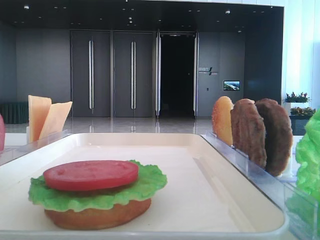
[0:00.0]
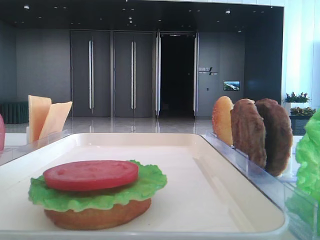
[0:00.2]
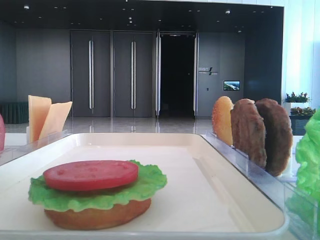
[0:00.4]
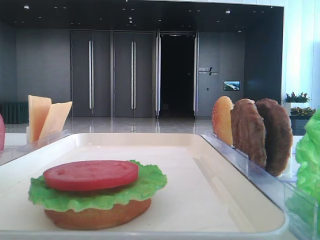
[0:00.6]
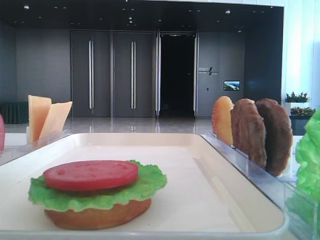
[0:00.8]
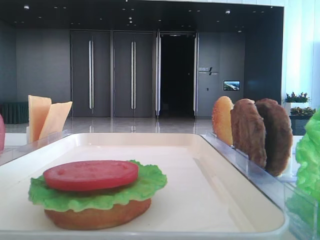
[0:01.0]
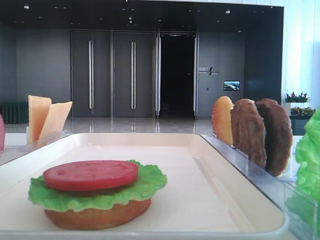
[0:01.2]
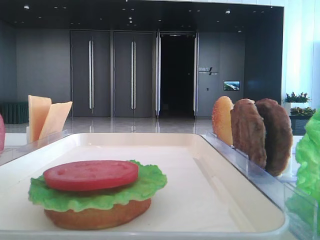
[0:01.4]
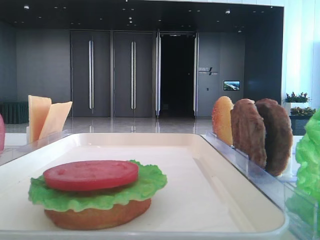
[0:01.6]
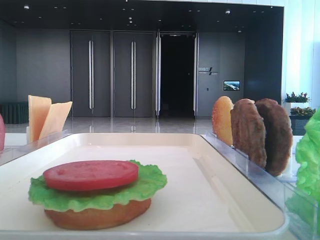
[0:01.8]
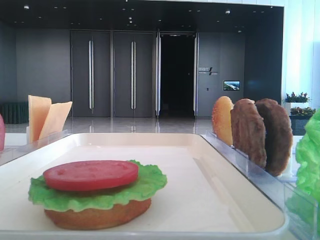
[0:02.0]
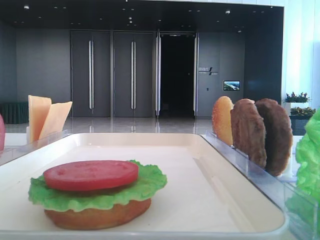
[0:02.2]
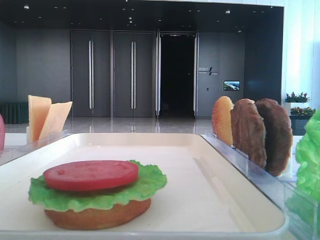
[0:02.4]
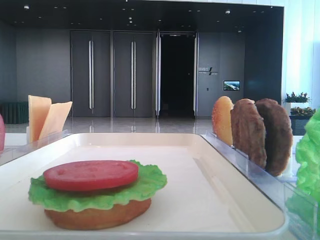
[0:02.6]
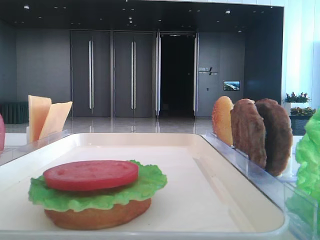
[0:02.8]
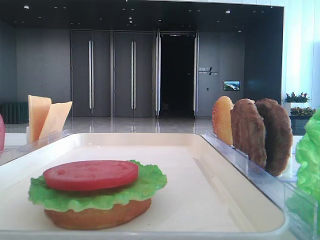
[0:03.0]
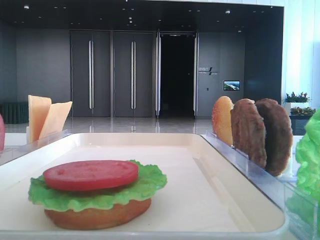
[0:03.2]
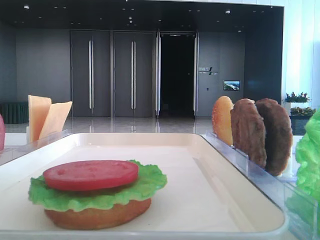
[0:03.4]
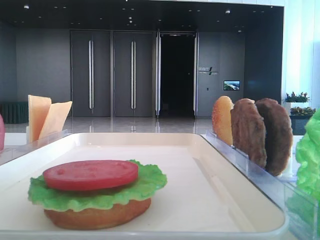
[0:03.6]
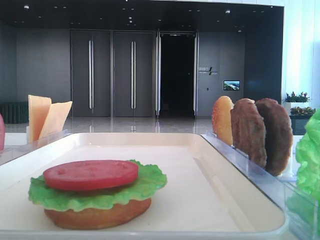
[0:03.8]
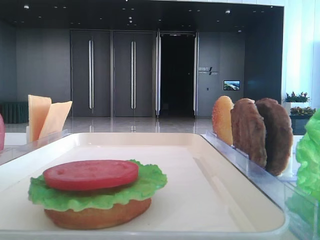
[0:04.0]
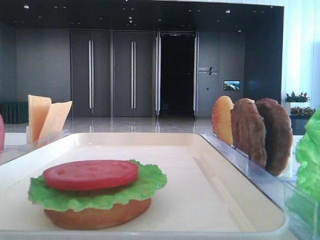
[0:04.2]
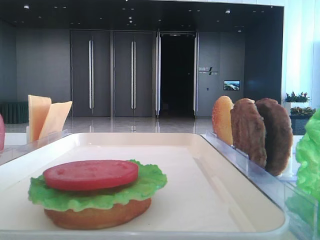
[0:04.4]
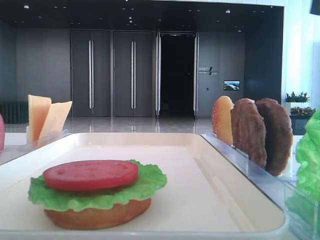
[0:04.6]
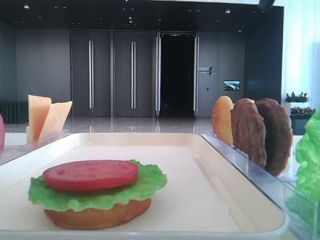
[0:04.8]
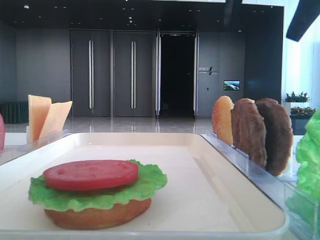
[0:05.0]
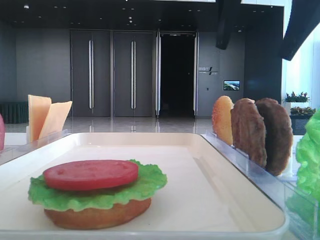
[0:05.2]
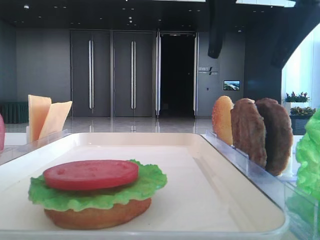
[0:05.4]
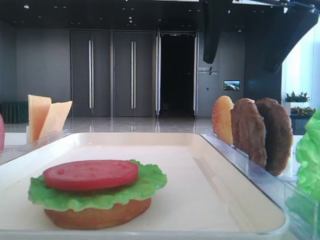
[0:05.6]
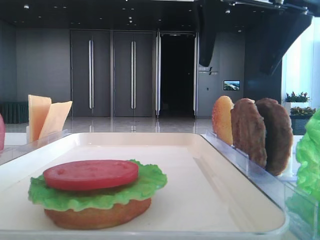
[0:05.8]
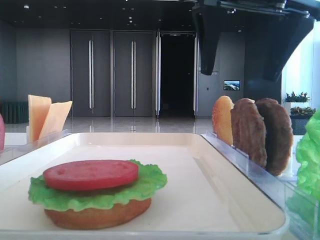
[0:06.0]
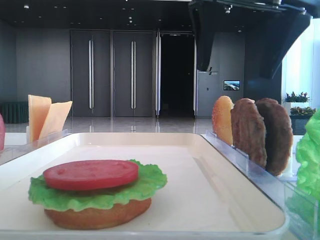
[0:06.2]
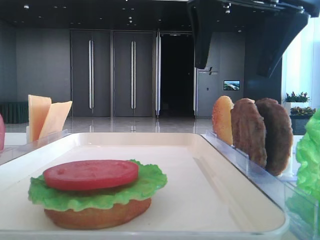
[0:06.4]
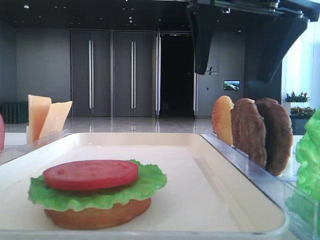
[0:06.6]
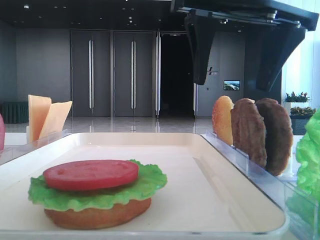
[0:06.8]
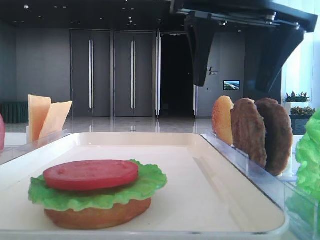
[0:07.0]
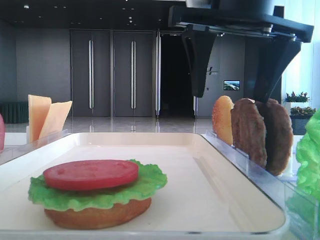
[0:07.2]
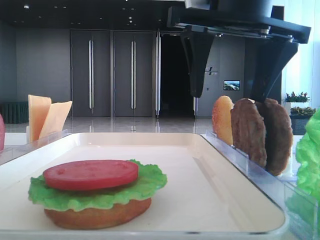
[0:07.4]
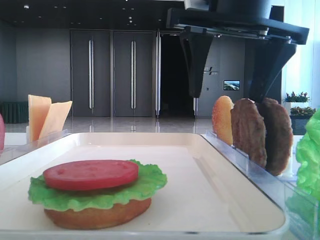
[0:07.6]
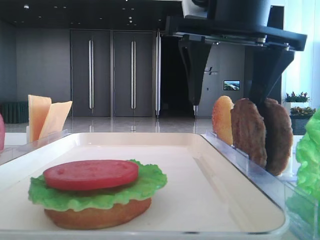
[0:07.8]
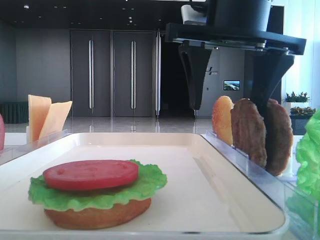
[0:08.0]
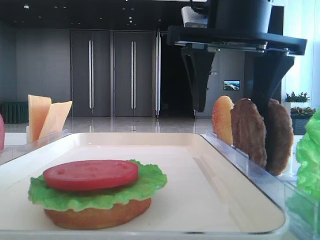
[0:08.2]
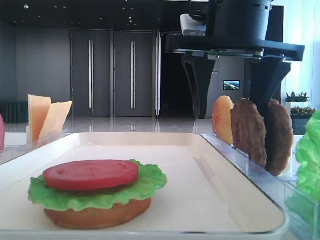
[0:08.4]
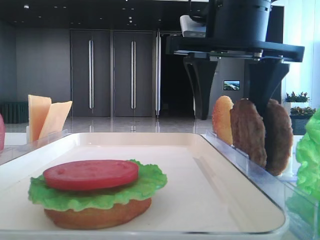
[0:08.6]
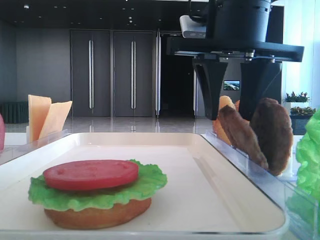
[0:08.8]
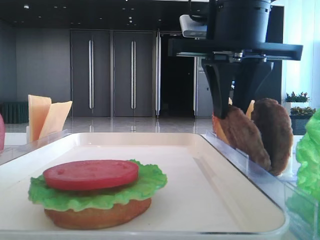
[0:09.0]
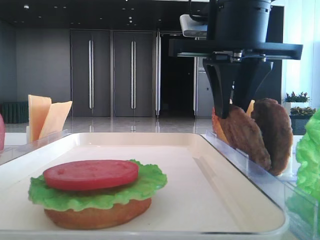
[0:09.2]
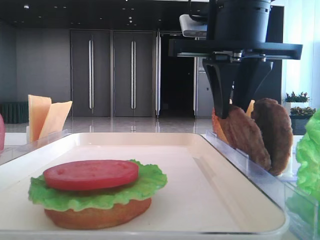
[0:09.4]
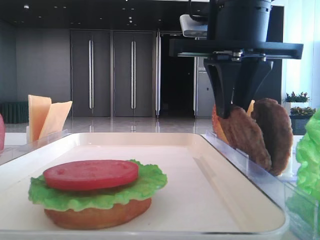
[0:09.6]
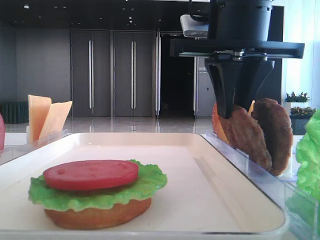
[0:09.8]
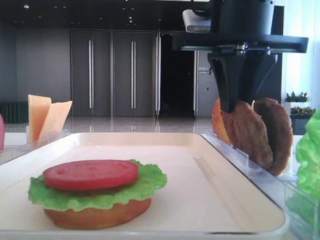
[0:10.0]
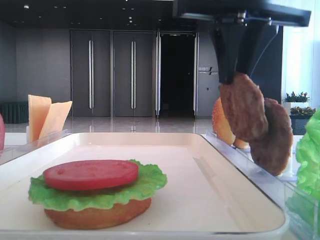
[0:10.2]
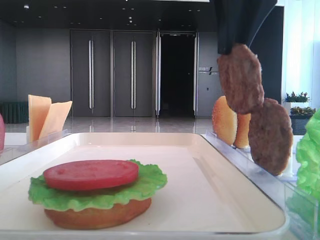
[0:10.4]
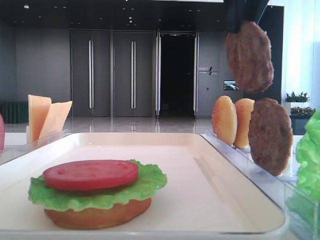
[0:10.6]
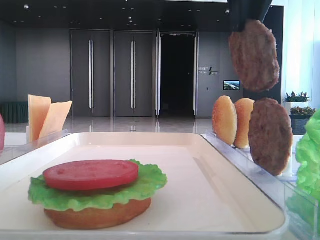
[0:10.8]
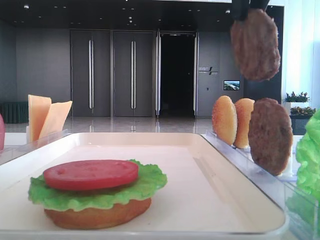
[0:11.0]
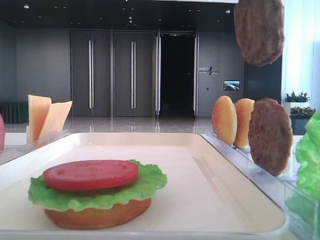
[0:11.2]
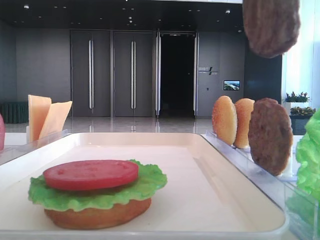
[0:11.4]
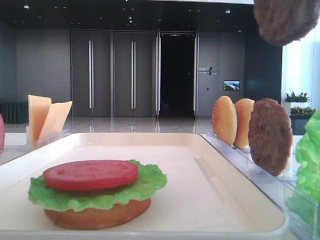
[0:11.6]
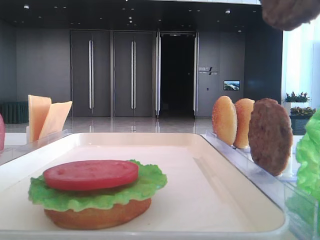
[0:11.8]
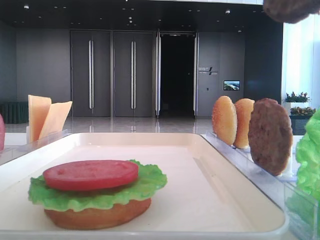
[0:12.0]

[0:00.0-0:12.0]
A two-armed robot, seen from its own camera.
Step, 0:00.0 to 0:09.8: Grab the patty with the right hand.
0:04.4 to 0:06.0: The right gripper is displaced to the left by approximately 15 cm.
0:06.0 to 0:07.6: There are only small adjustments of the grippers.
0:07.6 to 0:09.0: The right gripper closes.
0:09.0 to 0:10.4: The right gripper shifts about 5 cm upward.
0:10.4 to 0:12.0: The right gripper moves backward and upward, approximately 20 cm.

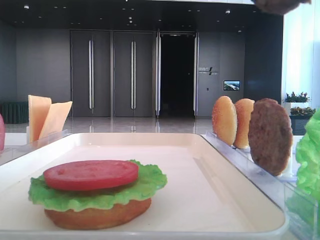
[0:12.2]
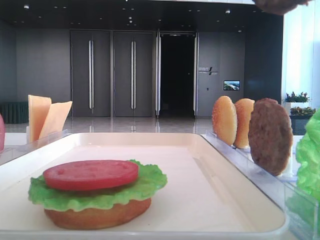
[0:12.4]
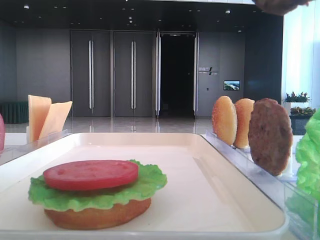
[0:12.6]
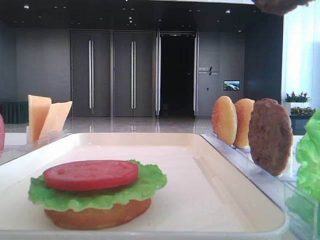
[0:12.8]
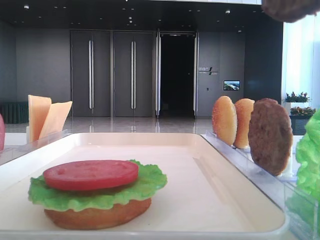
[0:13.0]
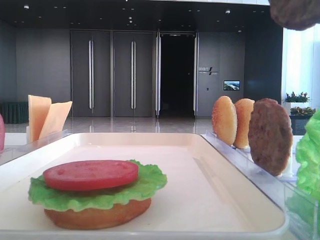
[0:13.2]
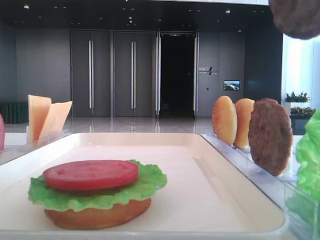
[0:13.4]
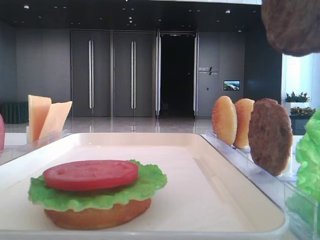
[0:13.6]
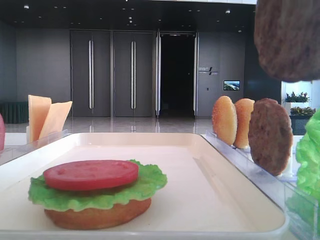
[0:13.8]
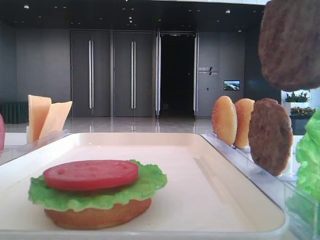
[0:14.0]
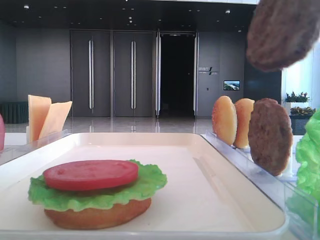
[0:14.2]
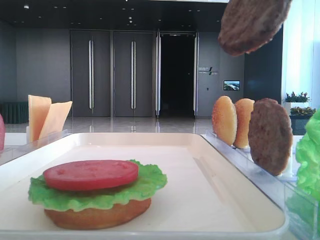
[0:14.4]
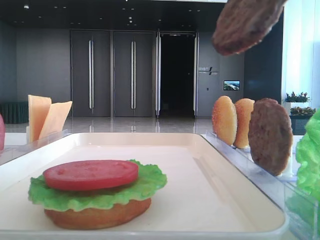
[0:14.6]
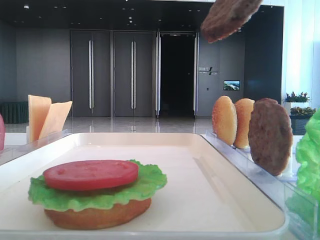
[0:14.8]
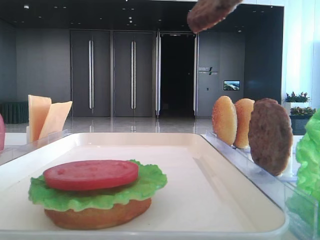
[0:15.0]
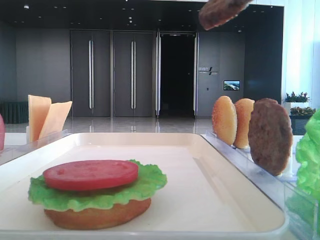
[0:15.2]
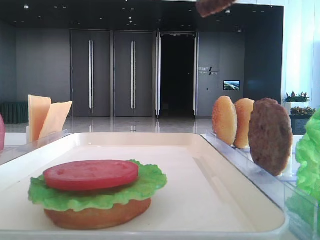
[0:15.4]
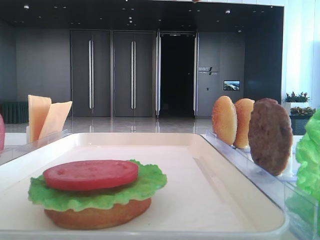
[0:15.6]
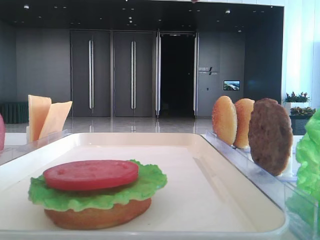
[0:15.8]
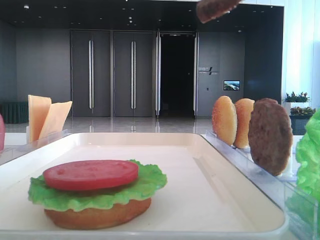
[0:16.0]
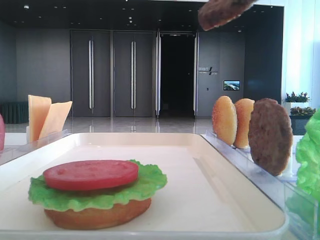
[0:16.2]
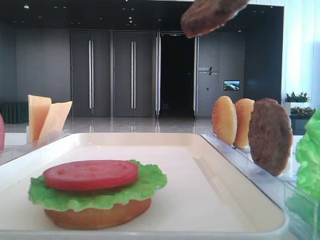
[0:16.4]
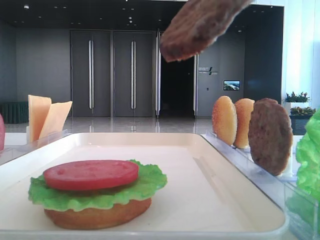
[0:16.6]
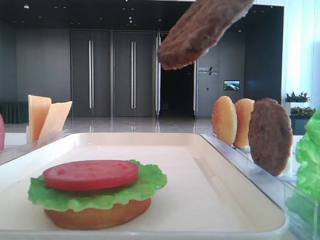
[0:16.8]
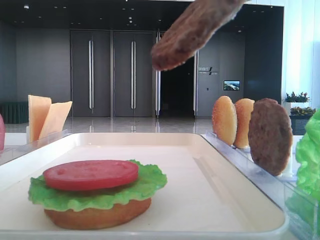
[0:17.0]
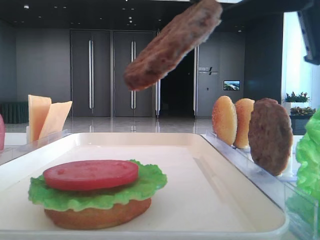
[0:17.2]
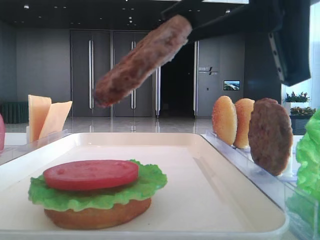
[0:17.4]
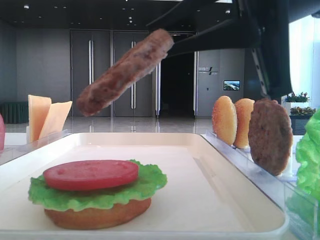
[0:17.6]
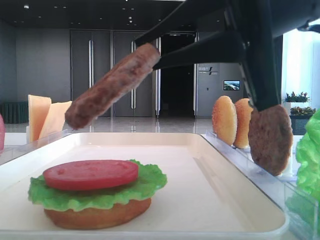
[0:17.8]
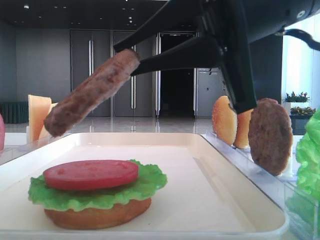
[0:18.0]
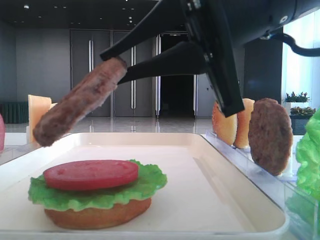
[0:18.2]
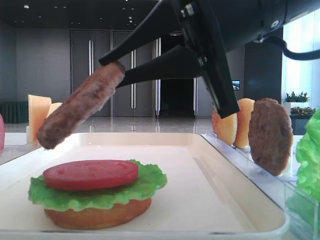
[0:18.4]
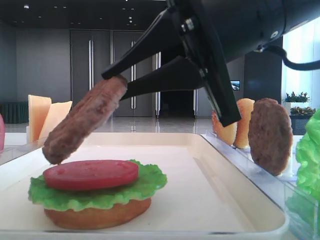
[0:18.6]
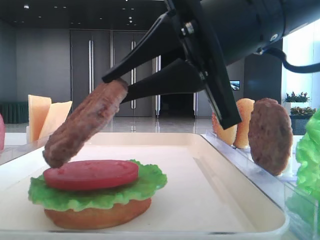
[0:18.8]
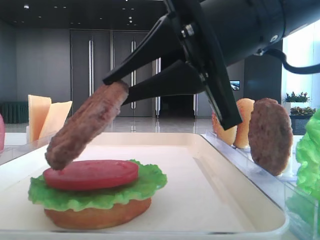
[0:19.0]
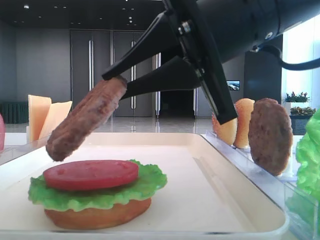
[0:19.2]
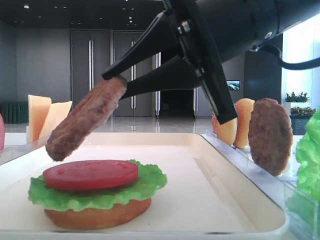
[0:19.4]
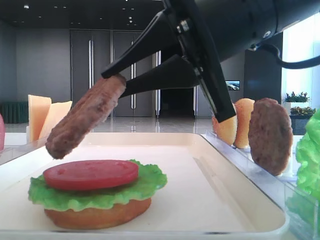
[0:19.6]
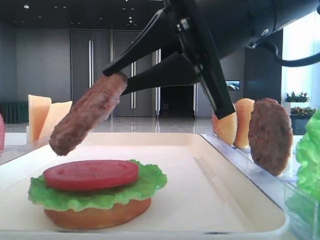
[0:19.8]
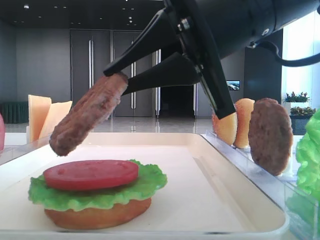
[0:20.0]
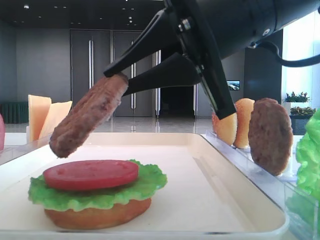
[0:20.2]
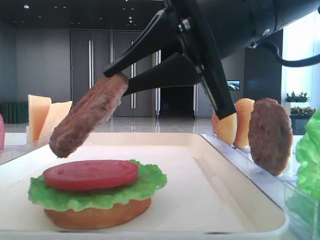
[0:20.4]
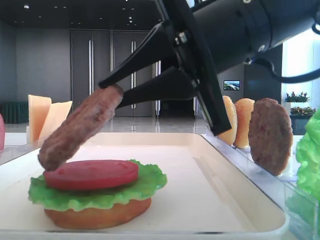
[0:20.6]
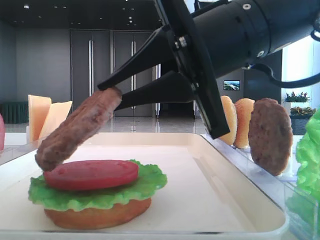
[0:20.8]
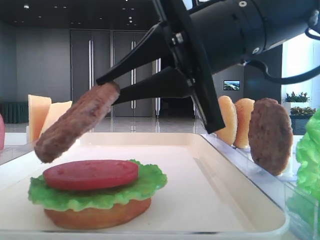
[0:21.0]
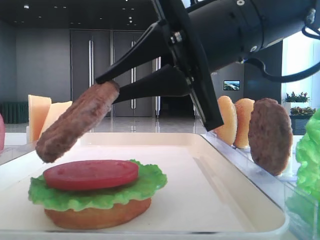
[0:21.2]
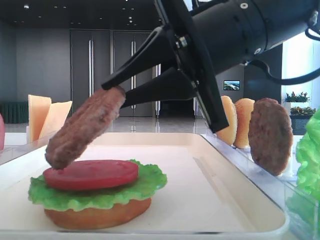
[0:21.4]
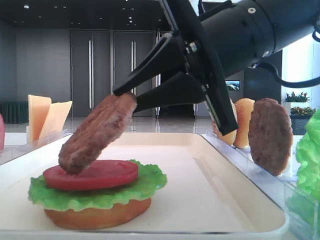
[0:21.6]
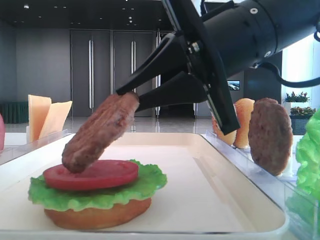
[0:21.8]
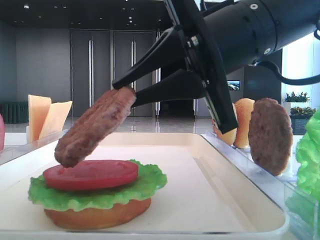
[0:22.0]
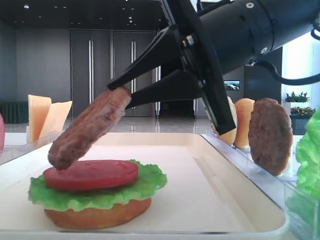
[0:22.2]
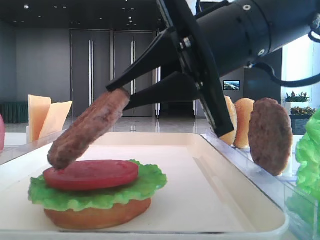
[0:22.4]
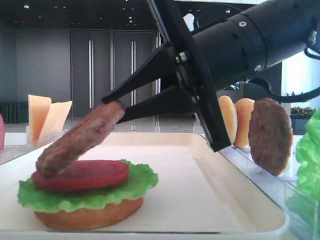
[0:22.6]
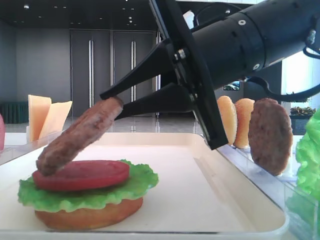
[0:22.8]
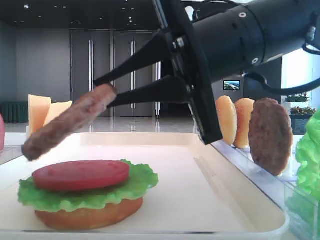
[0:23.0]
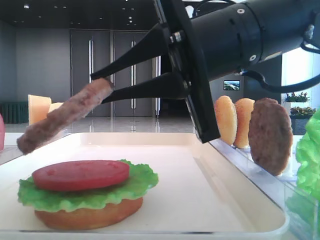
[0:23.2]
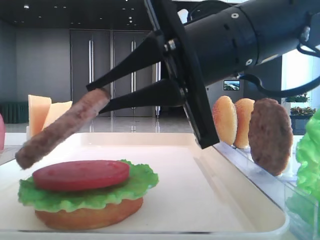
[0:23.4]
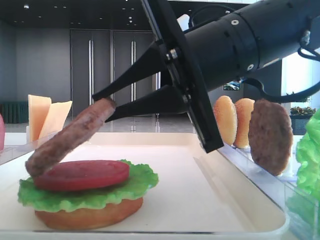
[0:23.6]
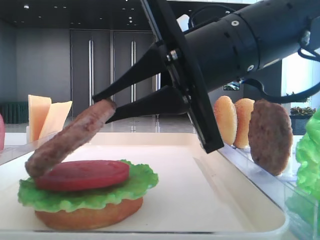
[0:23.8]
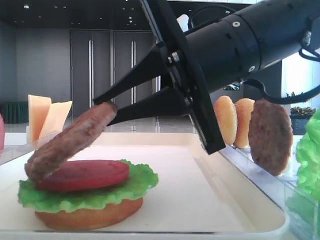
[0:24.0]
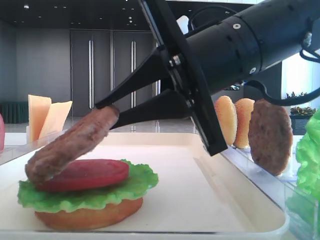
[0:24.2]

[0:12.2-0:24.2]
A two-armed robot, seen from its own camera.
0:12.2 to 0:13.8: The right gripper changes place by roughly 5 cm.
0:13.8 to 0:15.2: The right gripper shifts approximately 10 cm to the right and forward.
0:15.2 to 0:16.6: There are only small adjustments of the grippers.
0:16.6 to 0:18.2: The right gripper heads to the left and downward, covering approximately 10 cm.
0:18.2 to 0:21.2: There are only small adjustments of the grippers.
0:22.6 to 0:24.2: The grippers move only a little.
